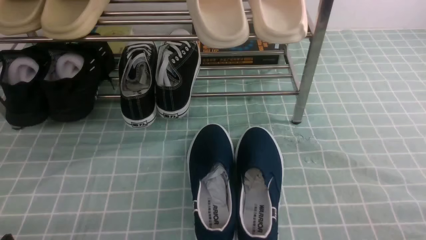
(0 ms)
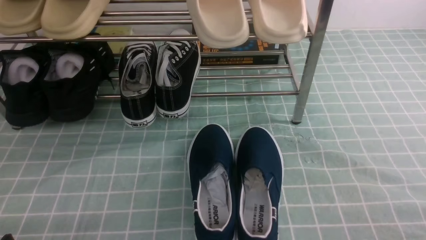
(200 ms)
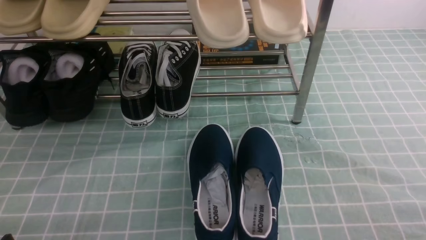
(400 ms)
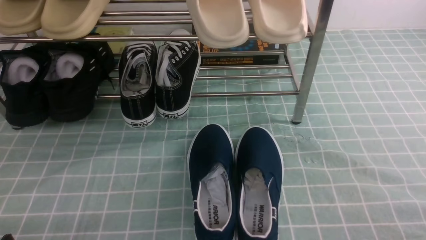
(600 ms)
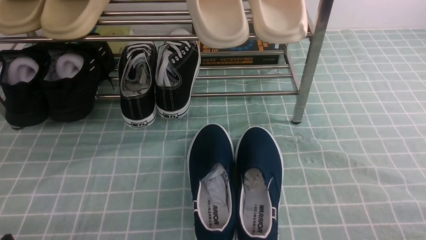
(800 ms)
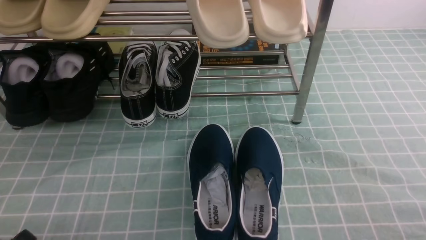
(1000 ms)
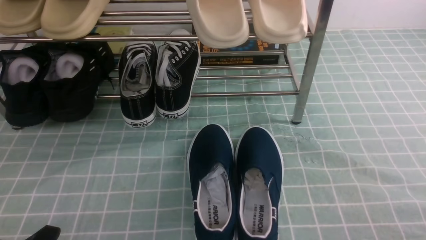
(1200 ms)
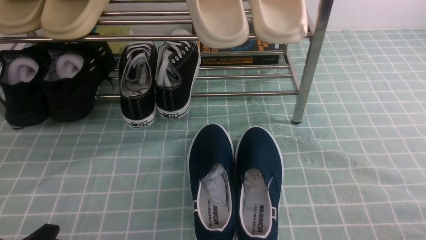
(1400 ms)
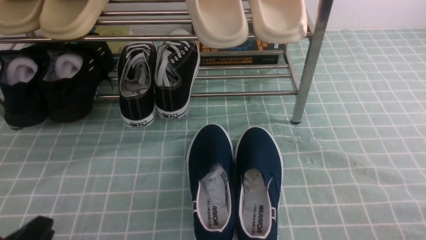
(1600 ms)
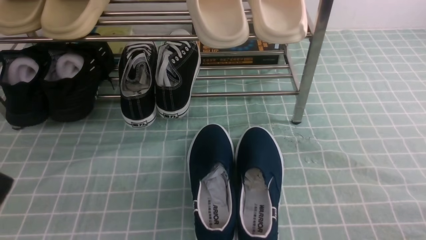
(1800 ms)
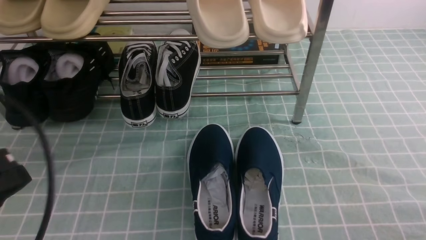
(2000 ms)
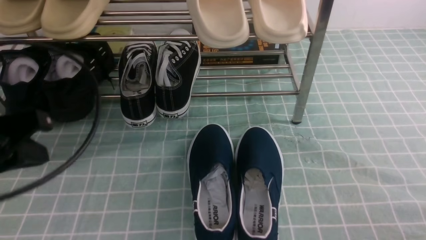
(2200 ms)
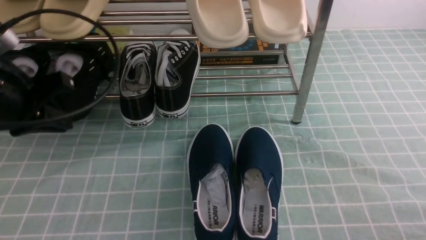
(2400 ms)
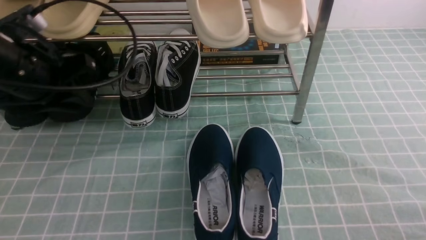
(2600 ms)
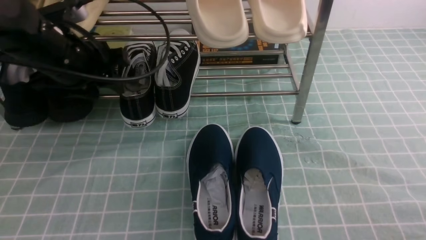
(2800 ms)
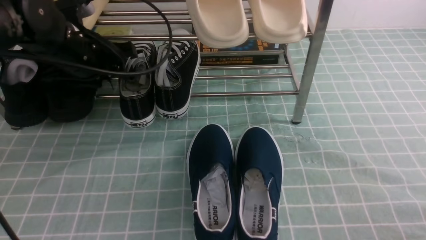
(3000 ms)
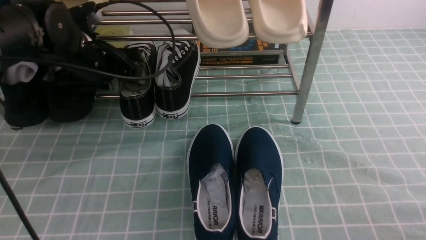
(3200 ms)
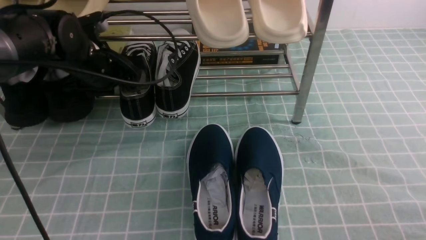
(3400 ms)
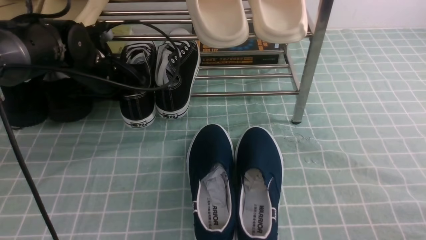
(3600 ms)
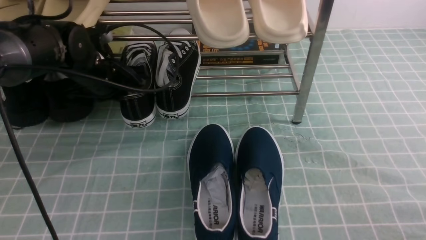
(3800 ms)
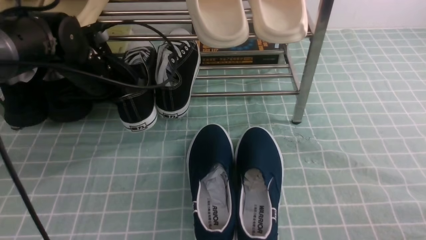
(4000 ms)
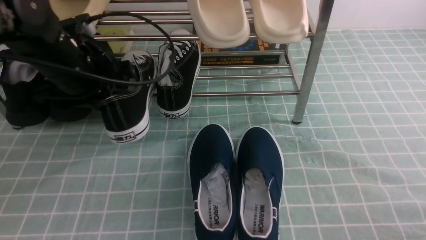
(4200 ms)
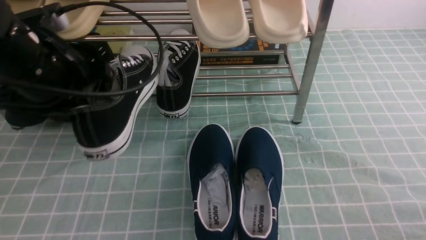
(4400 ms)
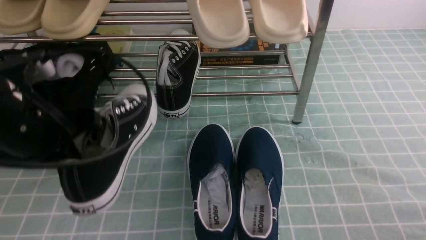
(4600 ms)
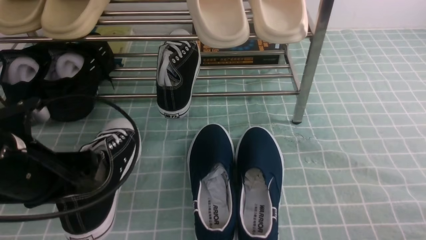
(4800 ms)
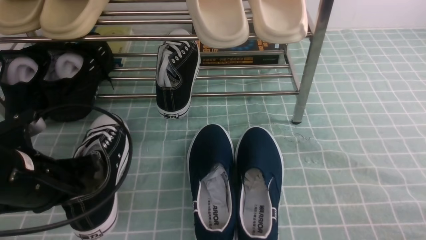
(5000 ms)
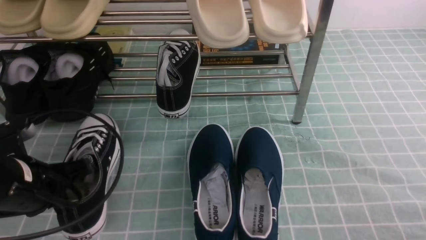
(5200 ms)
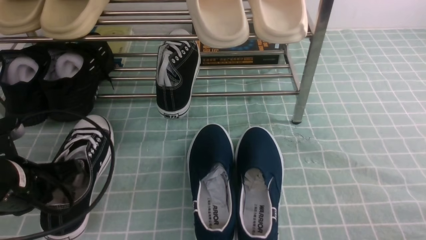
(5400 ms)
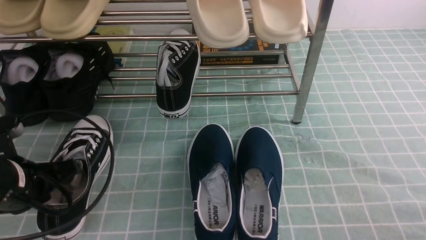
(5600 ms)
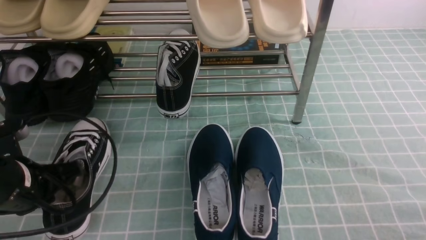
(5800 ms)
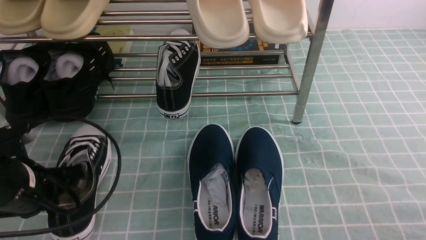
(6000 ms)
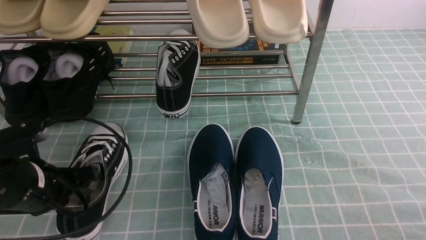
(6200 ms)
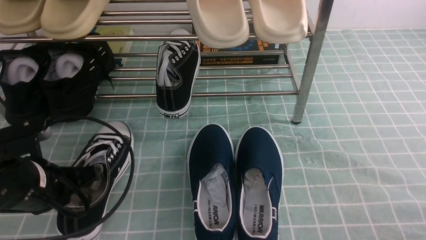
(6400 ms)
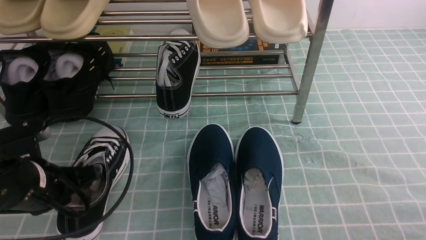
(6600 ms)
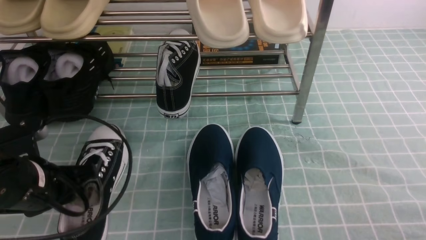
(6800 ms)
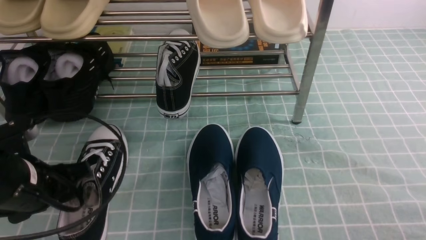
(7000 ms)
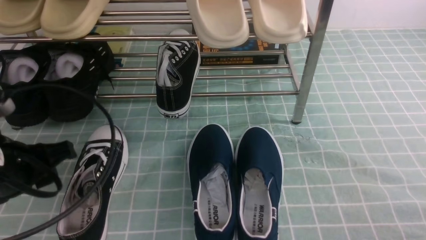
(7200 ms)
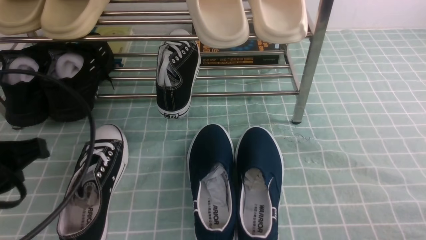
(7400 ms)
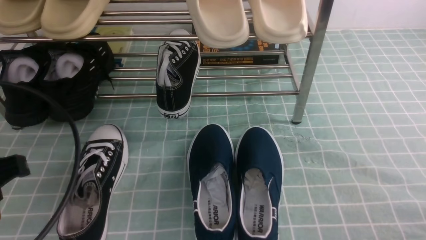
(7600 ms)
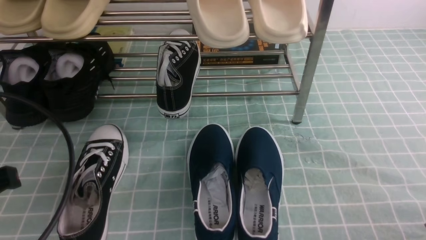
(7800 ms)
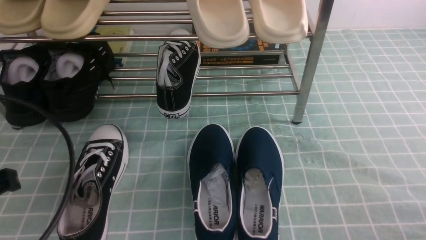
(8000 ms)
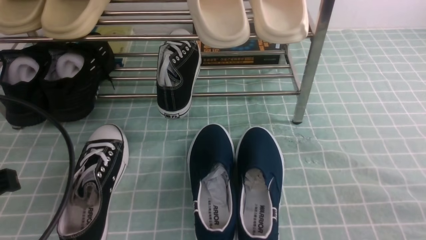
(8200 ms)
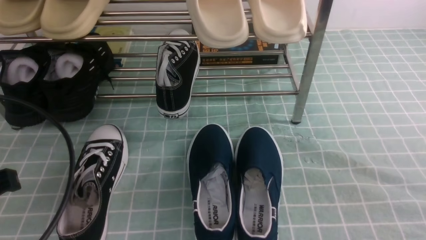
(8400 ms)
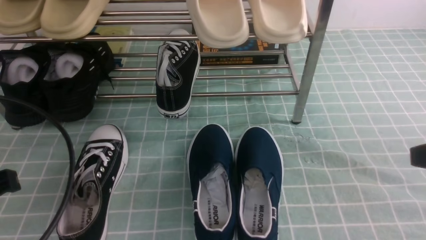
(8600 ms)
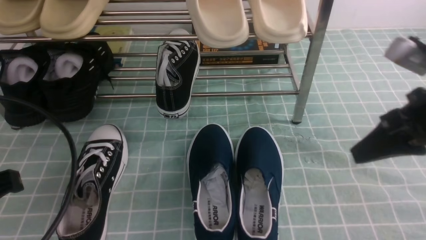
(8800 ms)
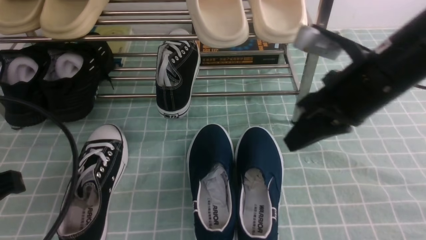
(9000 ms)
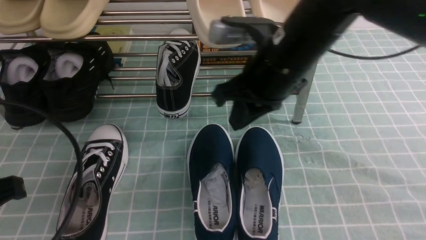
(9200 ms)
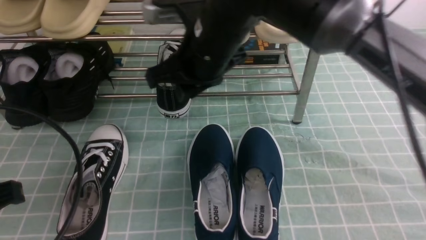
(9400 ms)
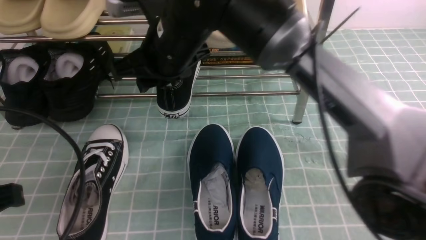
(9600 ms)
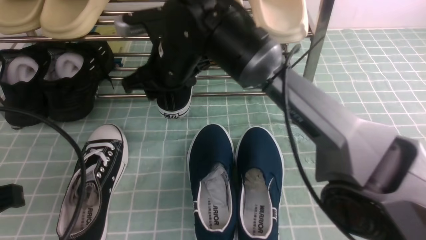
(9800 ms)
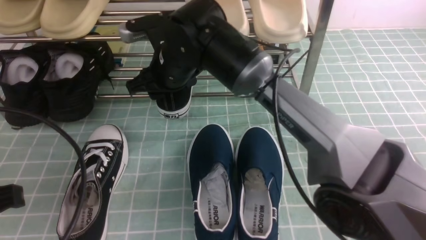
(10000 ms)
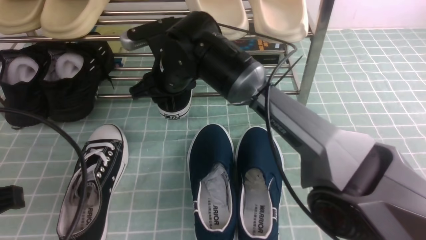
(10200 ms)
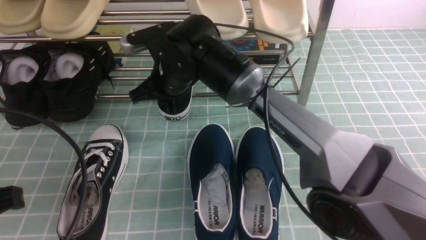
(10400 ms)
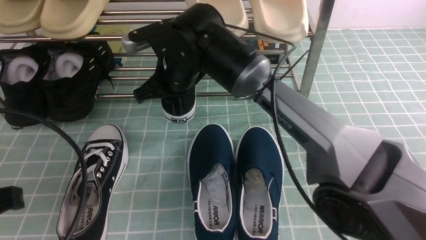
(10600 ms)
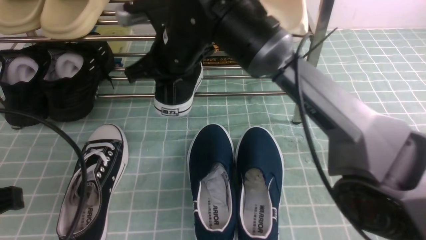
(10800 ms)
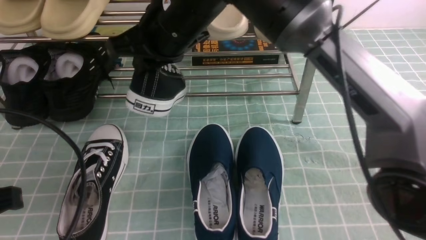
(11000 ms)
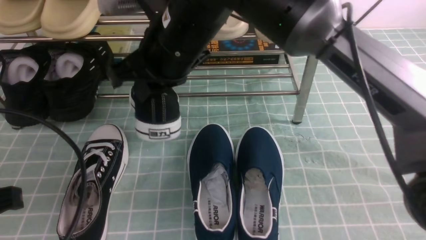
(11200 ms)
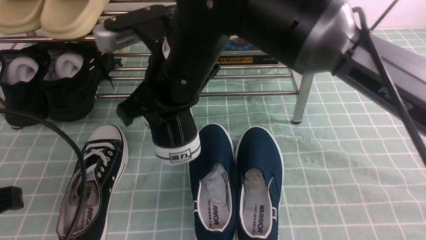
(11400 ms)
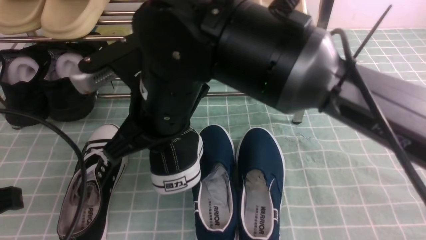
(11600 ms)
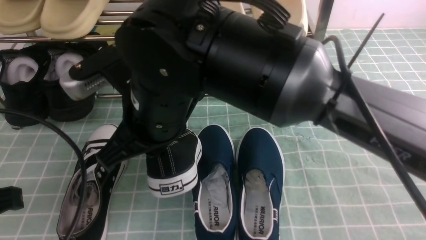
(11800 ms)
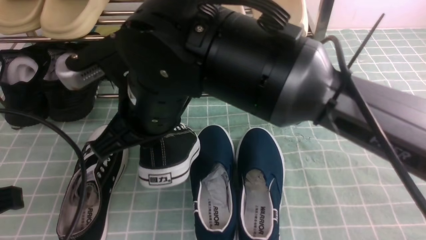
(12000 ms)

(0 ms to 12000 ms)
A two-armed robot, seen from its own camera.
Step, 0 ms - 3800 ms: use the left arm to clamp a shoe in the middle of the shoe rack.
Step, 4000 ms - 7200 ms: Use your left arm to remove the clamped shoe from the shoe rack and put it down.
Step, 7400 ms - 10600 ms: use the right arm to clamp a shoe in the middle of the shoe rack.
0 ms - 1600 ms: The left gripper changes place by roughly 5 cm.
1600 ms - 3000 ms: The left gripper shifts approximately 30 cm forward, and opens.
3000 ms - 4400 ms: The left gripper heads backward, covering some 10 cm, and closes up.
4400 ms - 6000 ms: The left gripper shifts some 15 cm downward and backward.
6000 ms - 7600 ms: The left gripper is displaced upward and backward by roughly 15 cm, and opens, then closes once more.
7600 ms - 9000 ms: The right gripper heads forward, upward and to the left, covering about 30 cm, and closes.
9000 ms - 10400 ms: The right gripper travels to the left and forward by some 25 cm, and opens its fingers.
10400 ms - 12000 ms: The right gripper shifts some 15 cm backward and upward.

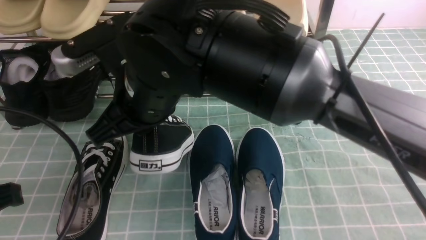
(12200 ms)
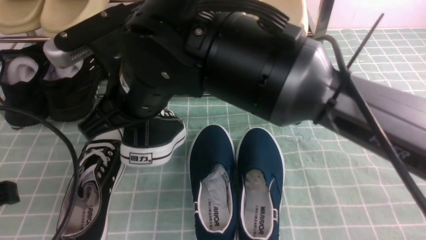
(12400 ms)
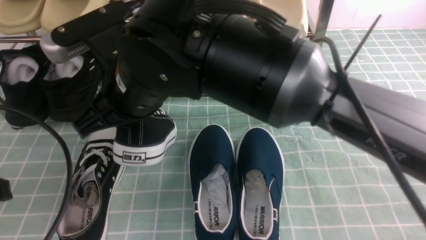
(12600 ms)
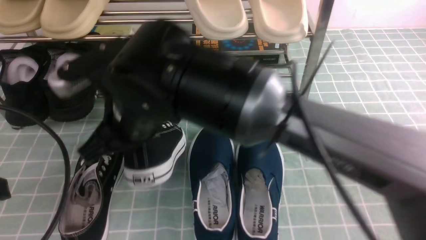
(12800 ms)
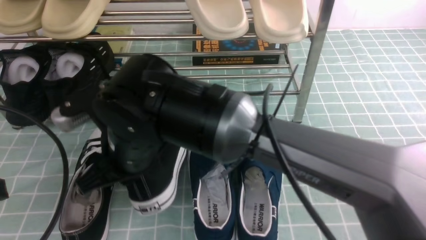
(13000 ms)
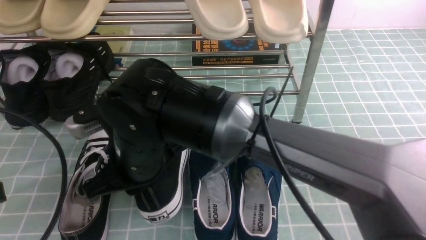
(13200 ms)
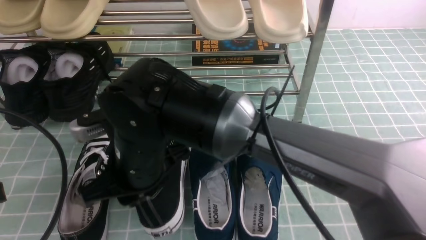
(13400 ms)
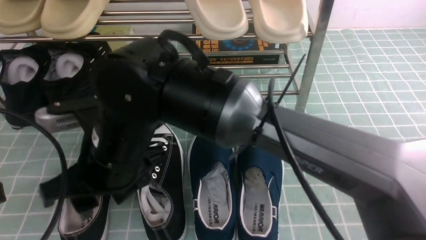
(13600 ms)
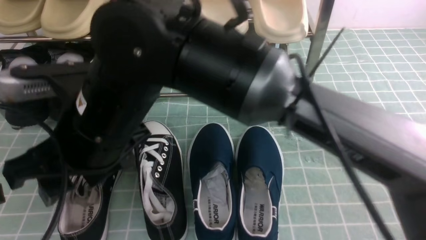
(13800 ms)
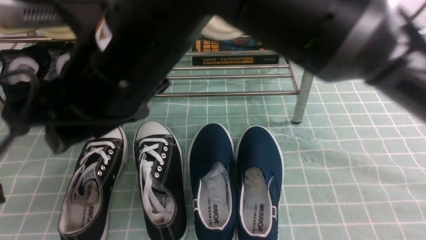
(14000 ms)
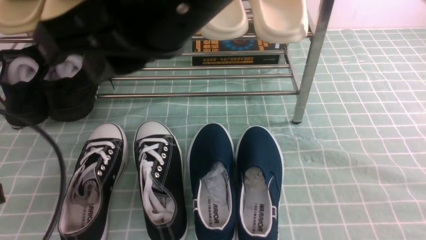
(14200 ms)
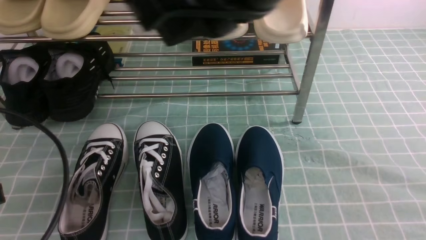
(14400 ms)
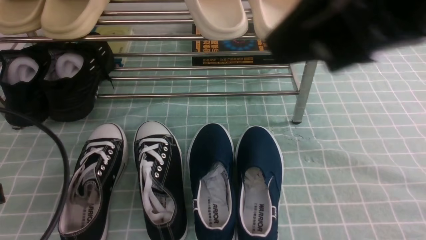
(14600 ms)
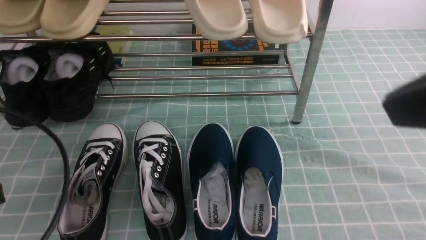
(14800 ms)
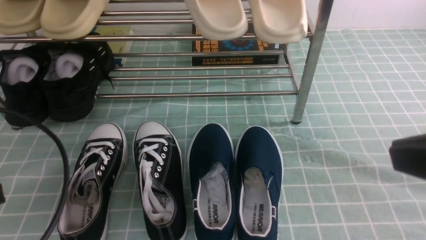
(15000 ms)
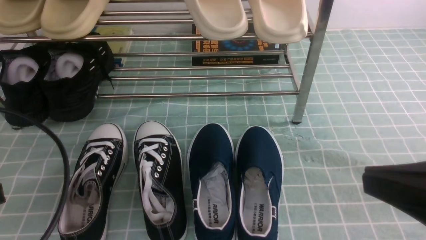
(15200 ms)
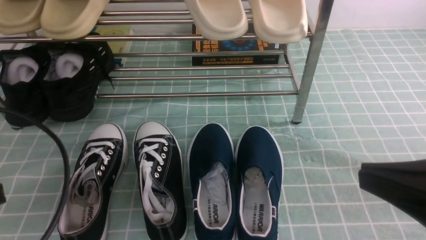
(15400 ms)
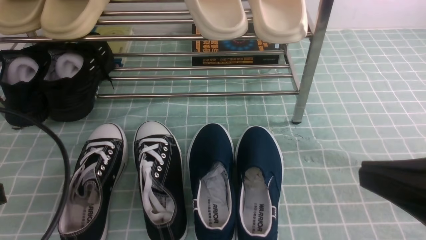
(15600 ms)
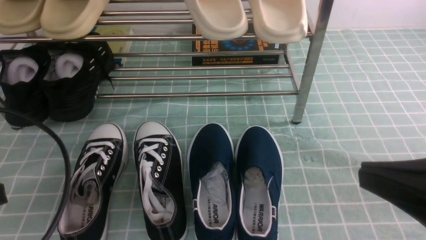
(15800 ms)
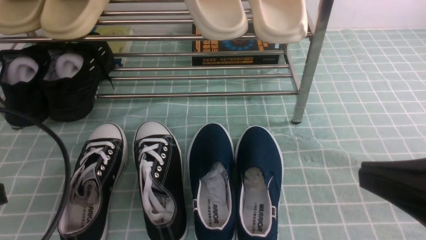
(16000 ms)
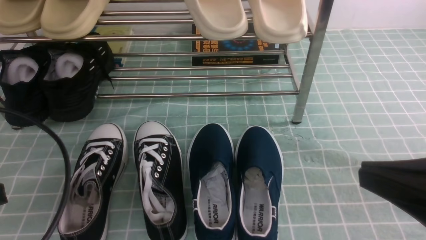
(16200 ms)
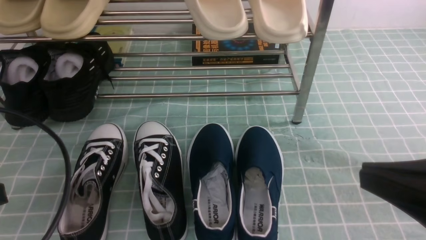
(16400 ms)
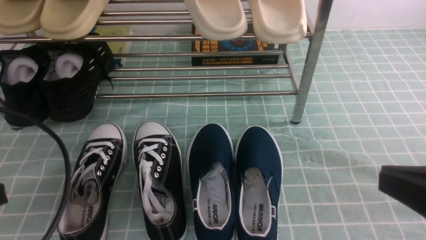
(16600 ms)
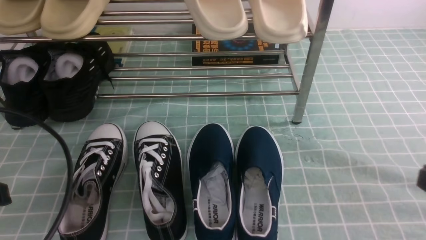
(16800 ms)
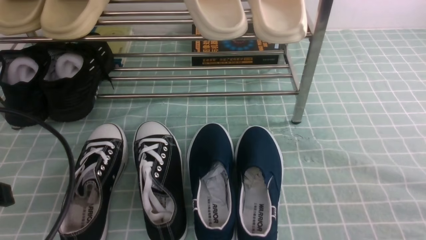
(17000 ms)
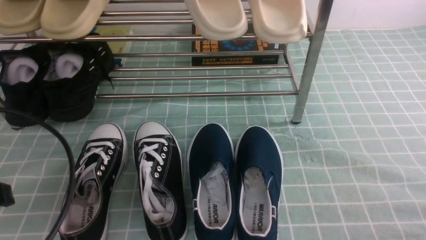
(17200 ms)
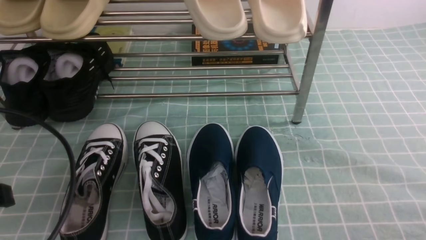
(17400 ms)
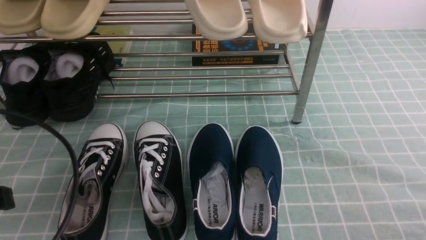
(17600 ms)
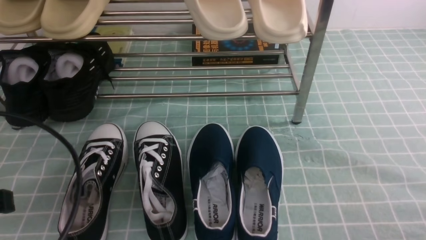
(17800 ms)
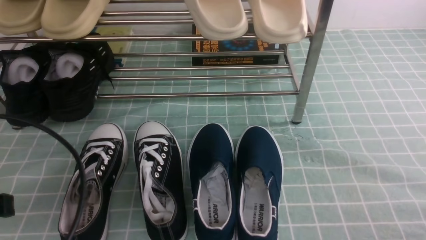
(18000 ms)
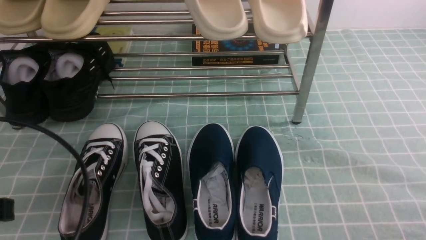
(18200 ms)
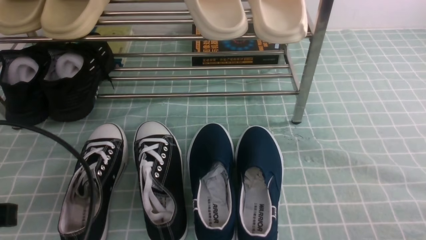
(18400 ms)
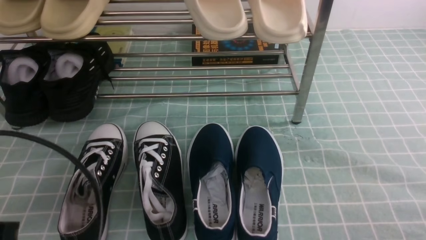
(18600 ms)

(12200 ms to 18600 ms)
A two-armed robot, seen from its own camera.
12200 ms - 13800 ms: The right gripper moves some 10 cm downward and comes back, and opens.
13800 ms - 15400 ms: The right gripper travels to the right and backward by about 35 cm, and closes its fingers.
15400 ms - 17000 ms: The right gripper travels downward and to the right by approximately 15 cm.
